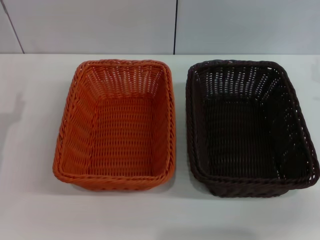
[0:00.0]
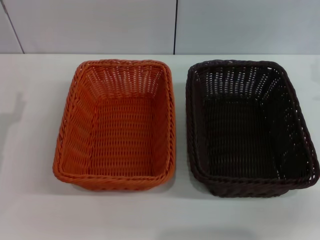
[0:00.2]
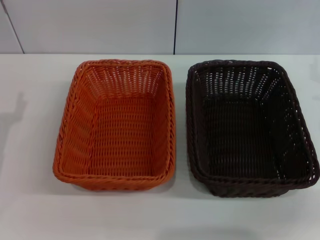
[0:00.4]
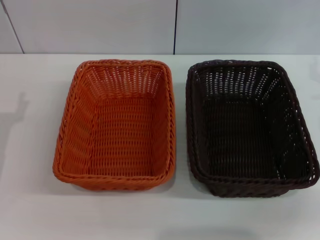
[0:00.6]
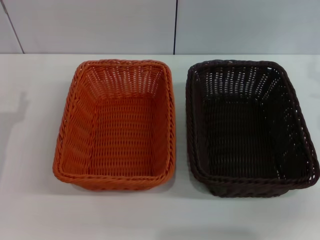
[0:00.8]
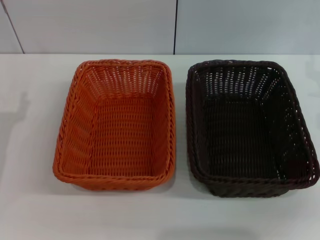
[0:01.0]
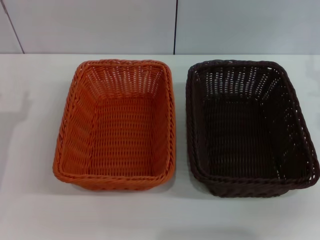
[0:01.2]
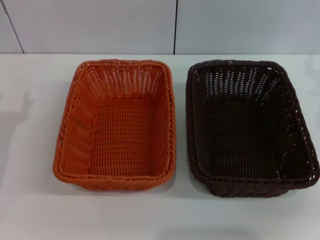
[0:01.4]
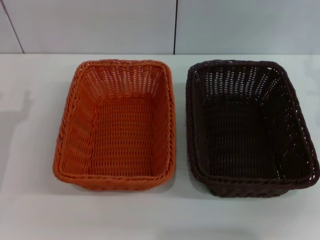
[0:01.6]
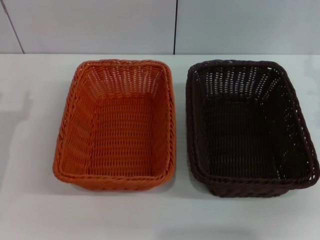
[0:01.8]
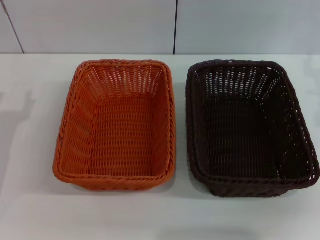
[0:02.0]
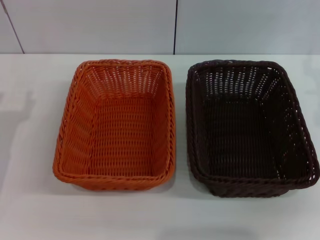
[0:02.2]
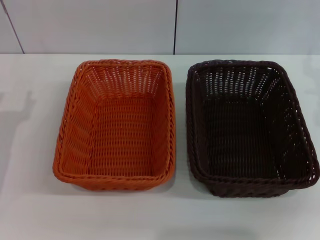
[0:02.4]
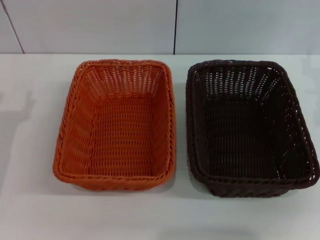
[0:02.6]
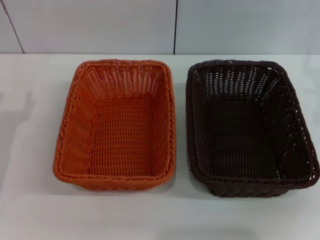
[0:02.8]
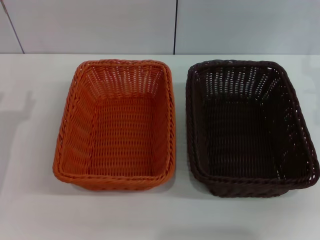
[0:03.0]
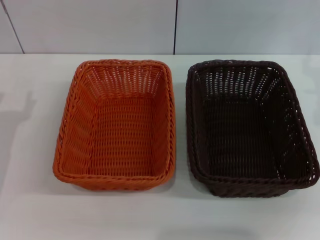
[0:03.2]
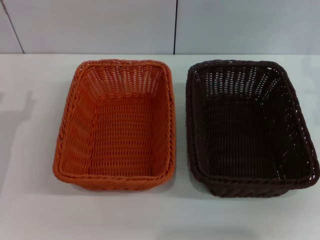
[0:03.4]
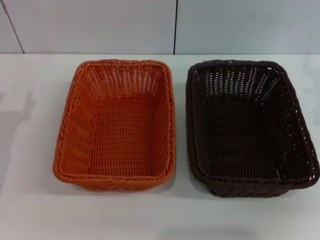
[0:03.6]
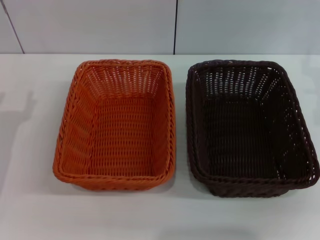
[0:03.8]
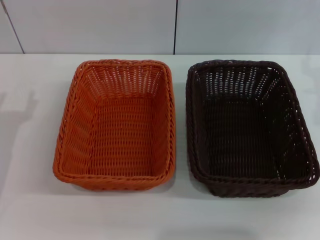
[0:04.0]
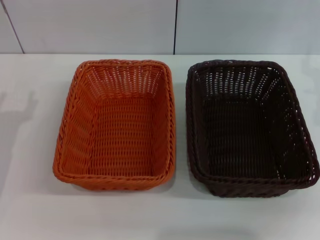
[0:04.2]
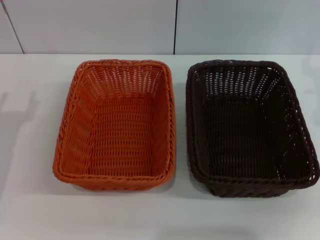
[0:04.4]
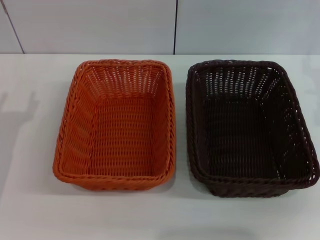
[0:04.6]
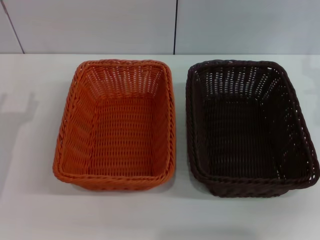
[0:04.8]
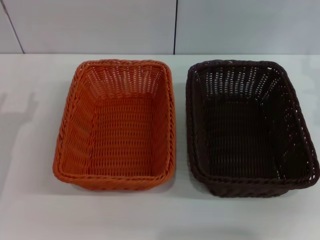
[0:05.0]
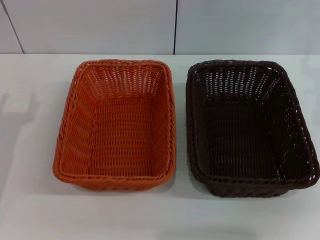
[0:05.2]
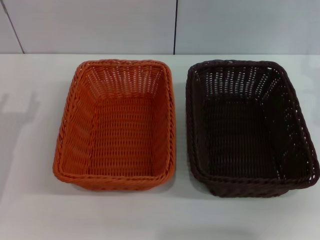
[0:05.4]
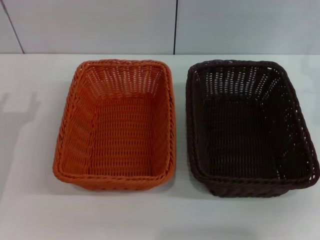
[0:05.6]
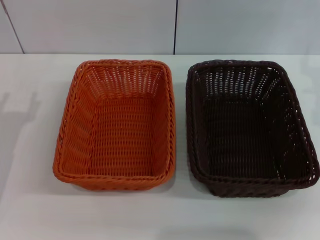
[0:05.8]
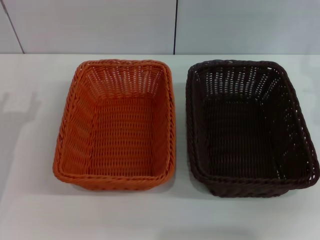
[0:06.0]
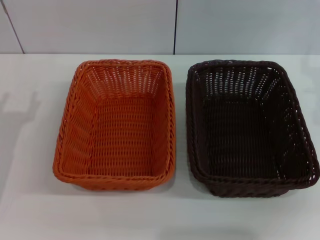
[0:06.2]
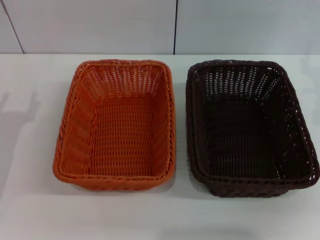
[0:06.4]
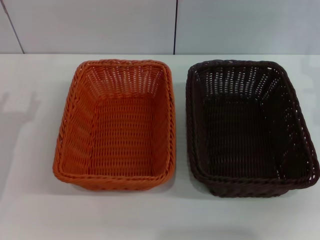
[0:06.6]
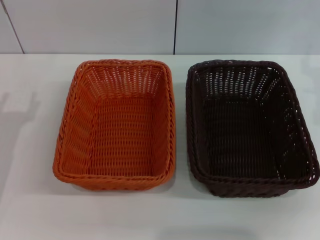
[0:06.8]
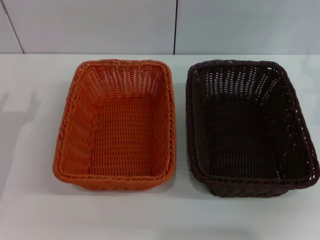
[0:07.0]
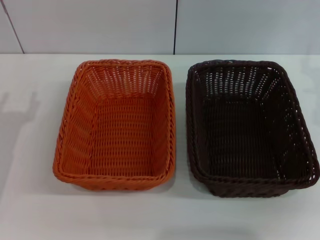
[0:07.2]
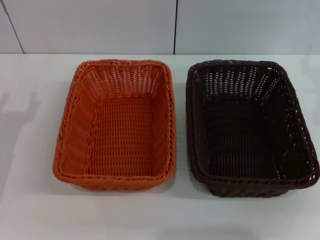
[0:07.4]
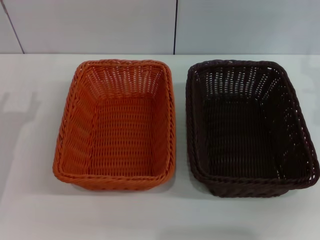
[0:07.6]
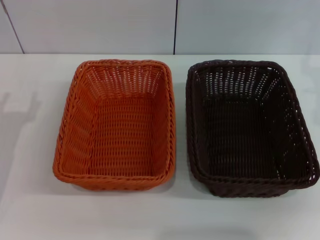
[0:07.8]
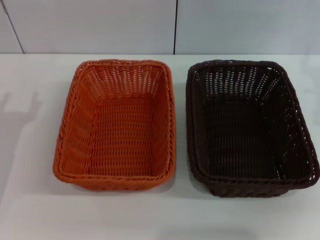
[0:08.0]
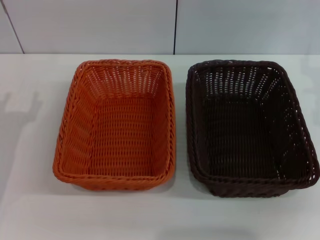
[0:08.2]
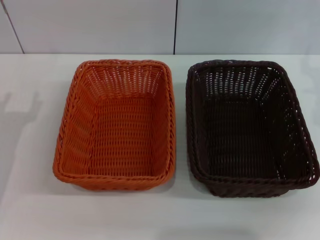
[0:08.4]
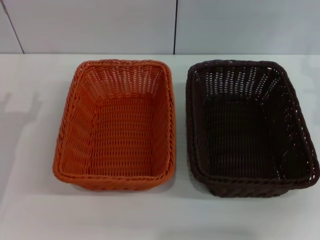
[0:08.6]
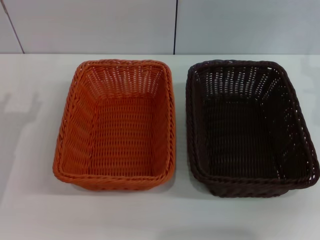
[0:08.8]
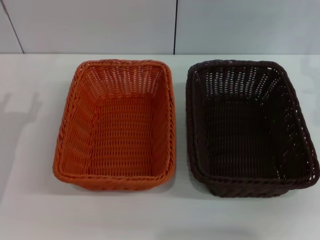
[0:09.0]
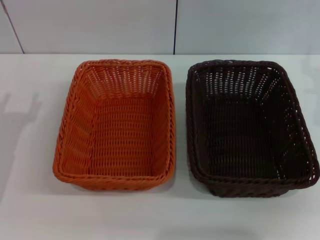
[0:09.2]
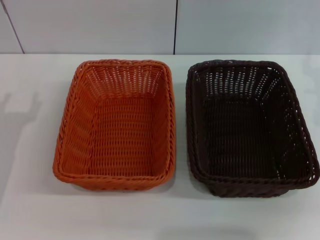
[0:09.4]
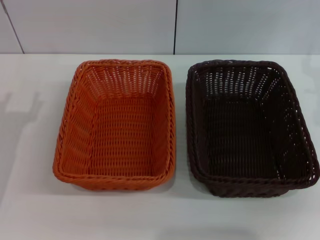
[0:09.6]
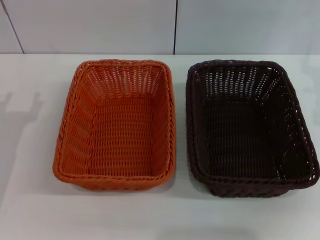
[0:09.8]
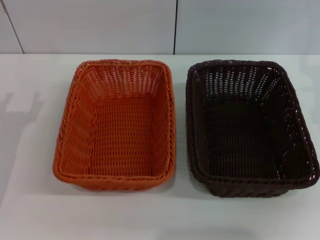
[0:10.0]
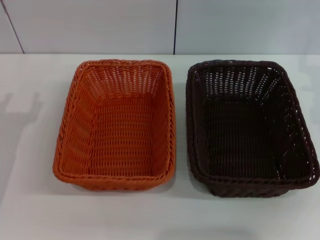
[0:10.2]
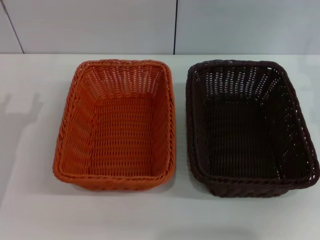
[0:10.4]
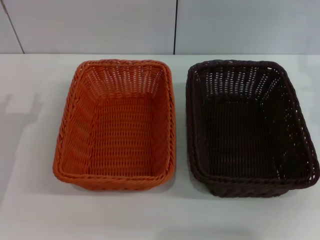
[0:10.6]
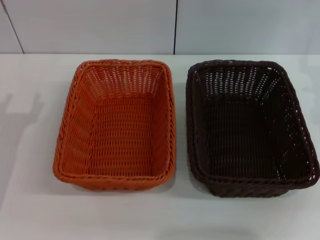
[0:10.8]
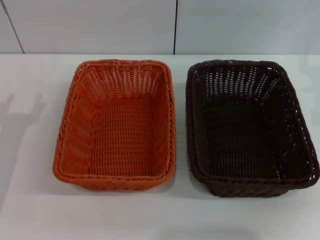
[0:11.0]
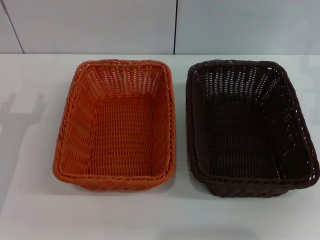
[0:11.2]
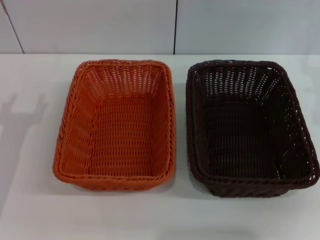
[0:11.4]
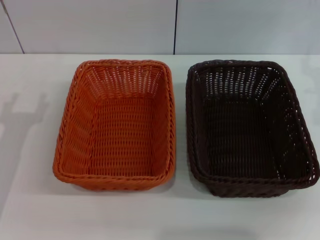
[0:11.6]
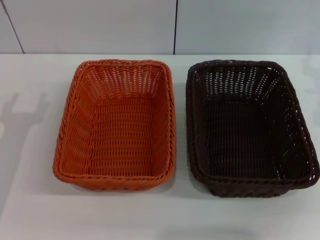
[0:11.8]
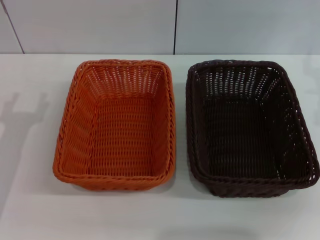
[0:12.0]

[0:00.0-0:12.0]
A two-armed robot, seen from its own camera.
0:01.6 to 0:09.0: Neither gripper changes place.
0:09.0 to 0:12.0: Both grippers stay put.

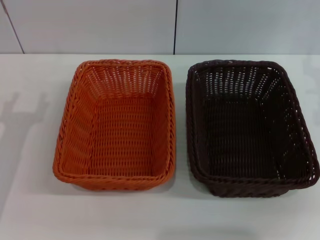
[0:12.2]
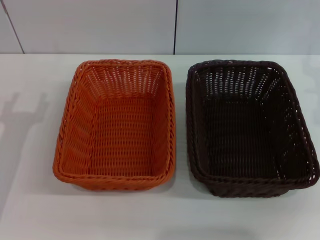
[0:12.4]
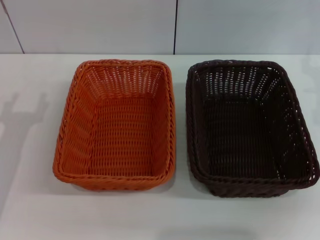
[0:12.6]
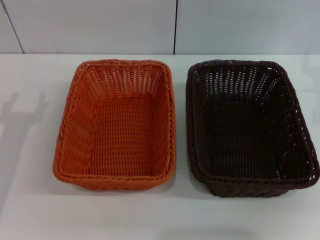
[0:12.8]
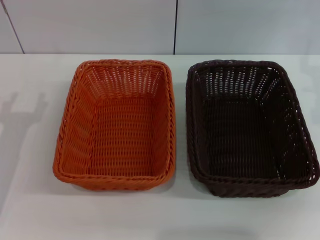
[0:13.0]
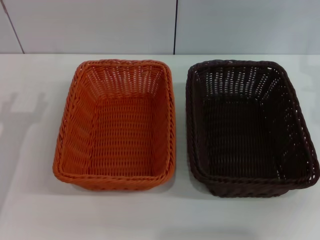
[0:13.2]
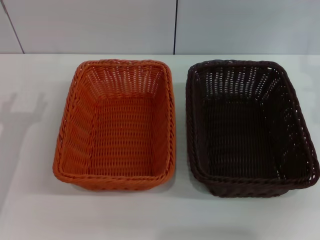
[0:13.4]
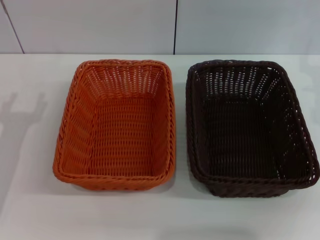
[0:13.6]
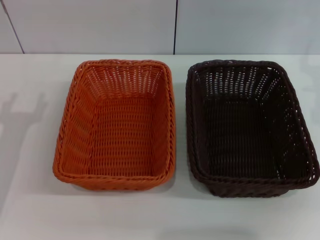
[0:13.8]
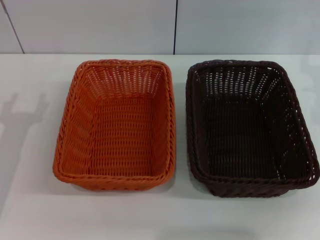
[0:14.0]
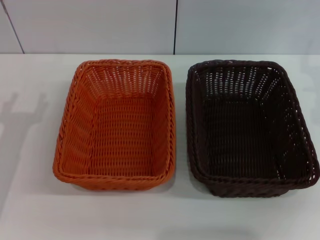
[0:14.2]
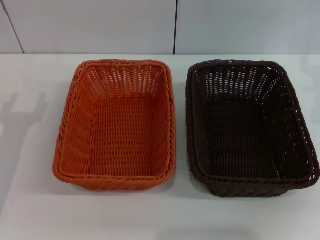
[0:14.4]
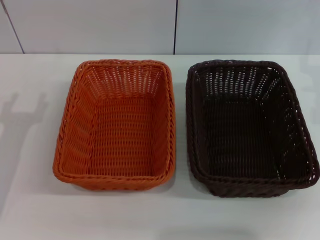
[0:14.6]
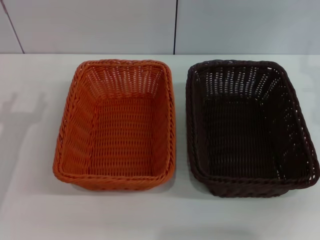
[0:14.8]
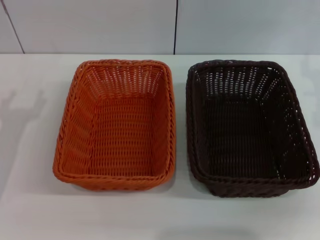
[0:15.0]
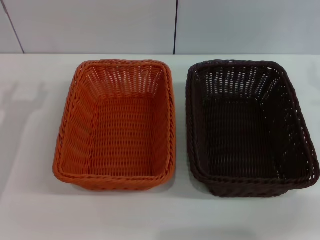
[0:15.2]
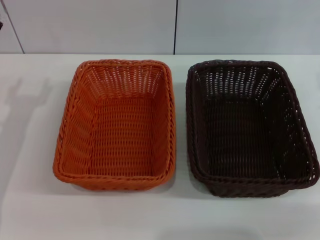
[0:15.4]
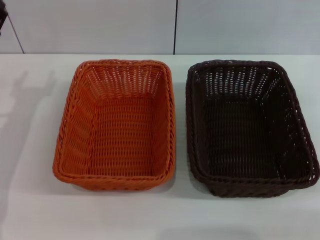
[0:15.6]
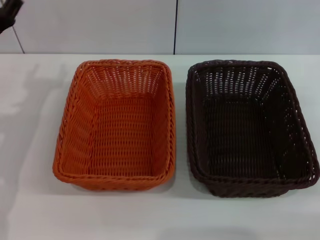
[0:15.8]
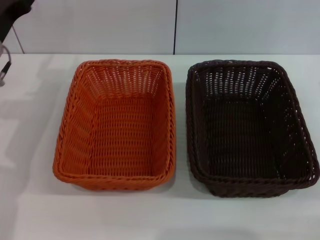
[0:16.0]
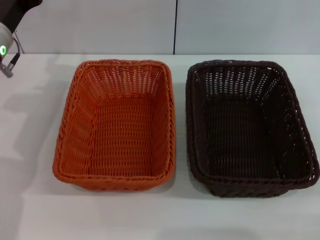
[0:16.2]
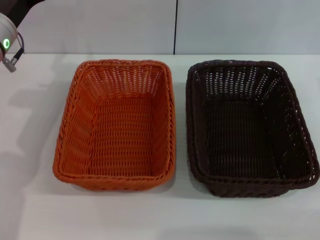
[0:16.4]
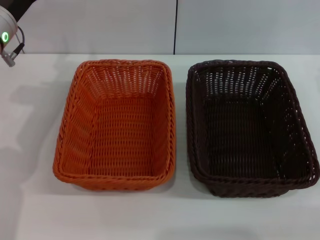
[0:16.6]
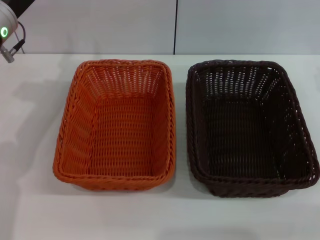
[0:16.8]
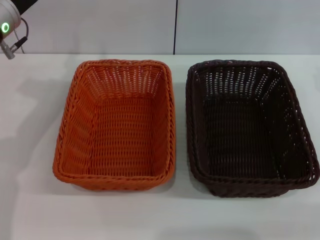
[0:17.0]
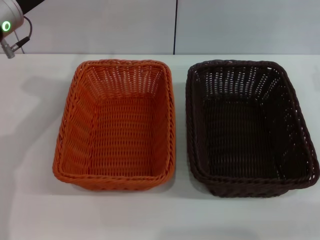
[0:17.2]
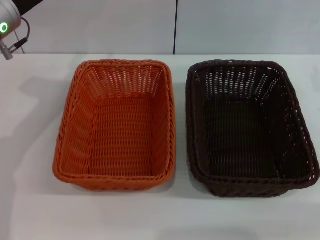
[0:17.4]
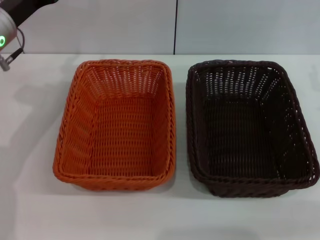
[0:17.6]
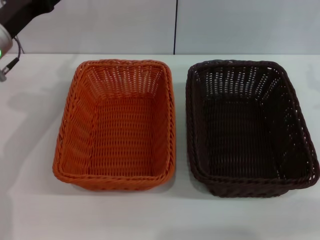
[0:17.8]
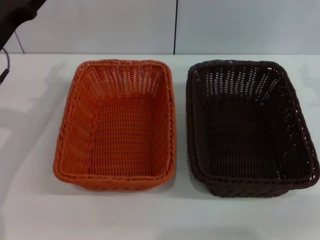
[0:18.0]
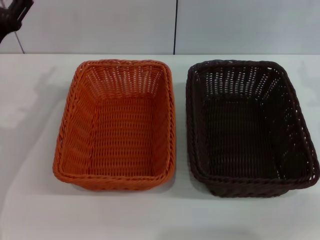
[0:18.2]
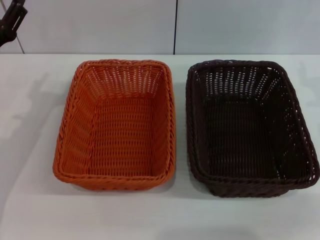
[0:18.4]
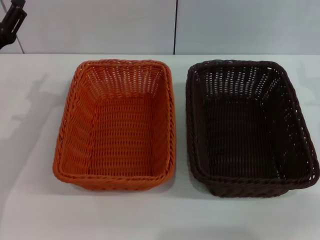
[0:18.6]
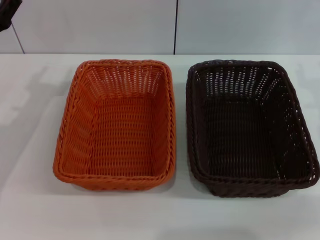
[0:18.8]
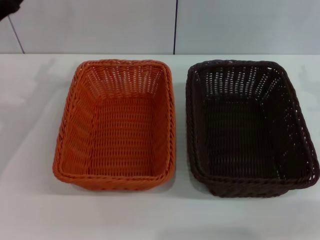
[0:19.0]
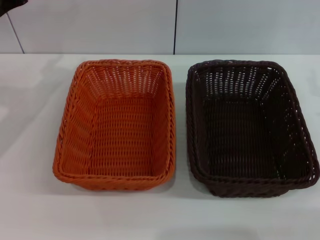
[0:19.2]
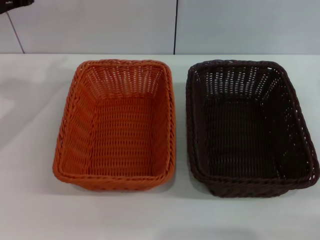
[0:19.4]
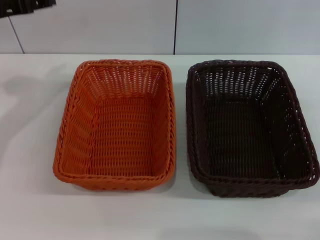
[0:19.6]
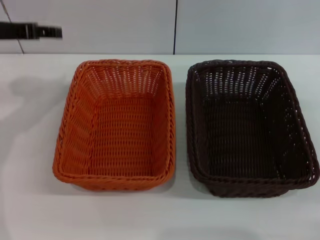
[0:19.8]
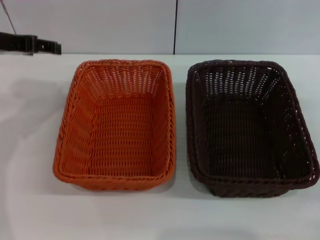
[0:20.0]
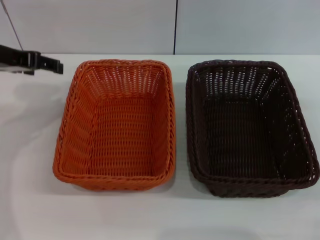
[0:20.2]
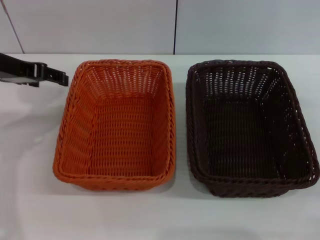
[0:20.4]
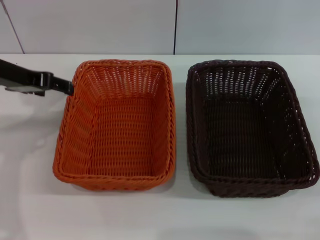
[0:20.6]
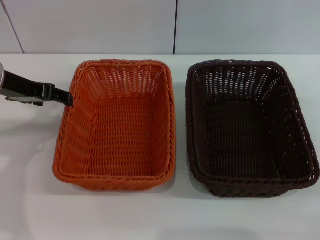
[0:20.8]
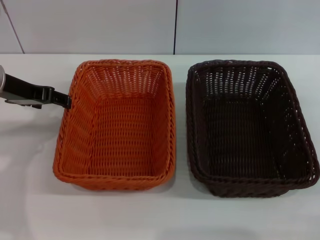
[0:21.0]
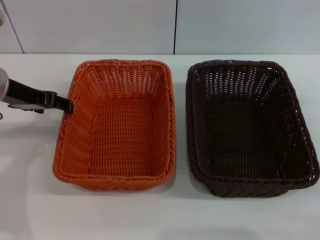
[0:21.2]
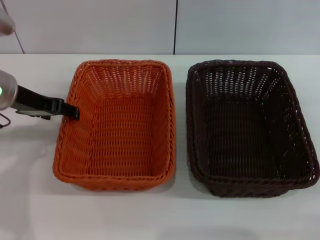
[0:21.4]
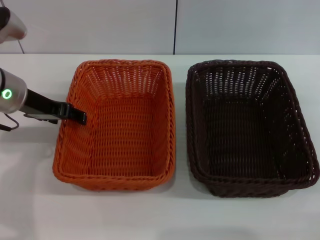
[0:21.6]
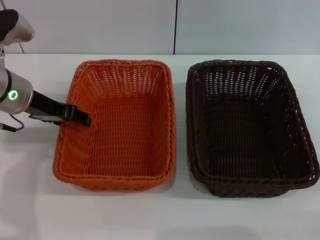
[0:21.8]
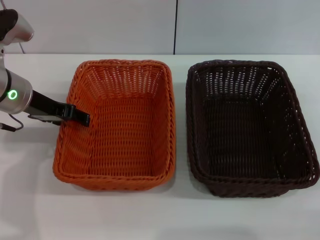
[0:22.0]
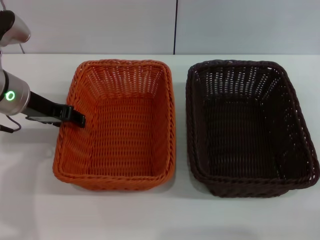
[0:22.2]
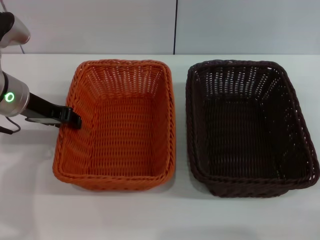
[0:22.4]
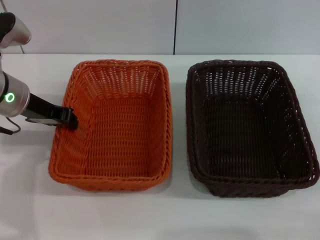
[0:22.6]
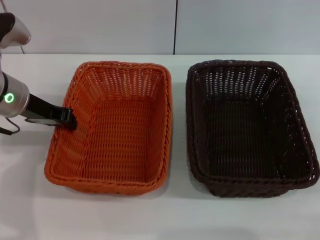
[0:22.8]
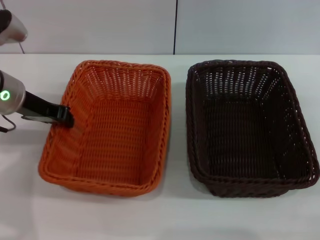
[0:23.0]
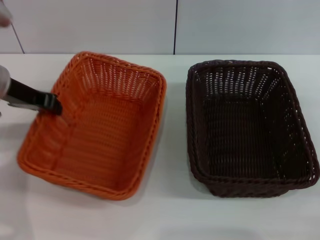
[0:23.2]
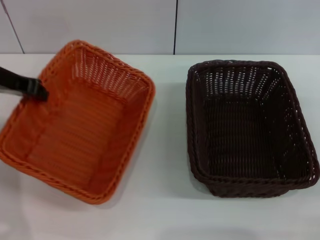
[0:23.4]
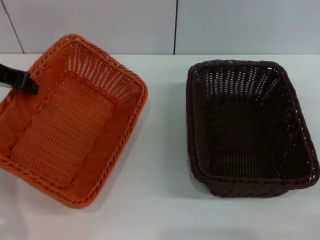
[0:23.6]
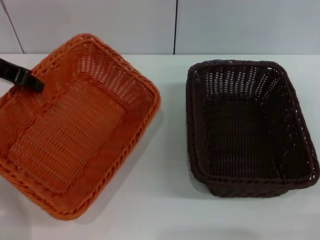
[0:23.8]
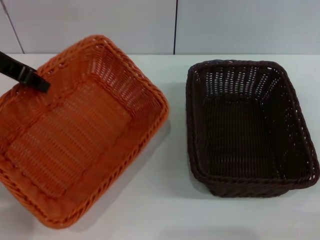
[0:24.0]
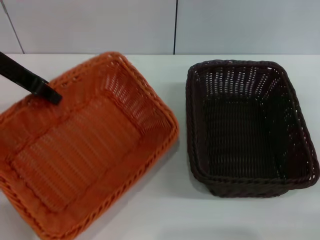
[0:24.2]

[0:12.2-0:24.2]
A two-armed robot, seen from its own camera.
Step, 0:12.2 to 0:23.0: Pick up the light basket with the left gripper.
0:12.2 to 0:13.8: Both grippers stay about where they are.
0:15.2 to 0:16.6: The left gripper heads forward, upward and to the right, covering approximately 15 cm.
0:16.6 to 0:18.2: The left gripper moves backward and downward, some 10 cm.
0:18.2 to 0:19.8: The left gripper moves upward, about 10 cm.
0:19.8 to 0:21.2: The left gripper changes place by approximately 5 cm.
0:21.2 to 0:22.6: The left gripper closes.
0:22.6 to 0:24.2: The left gripper goes about 10 cm upward, and closes.
